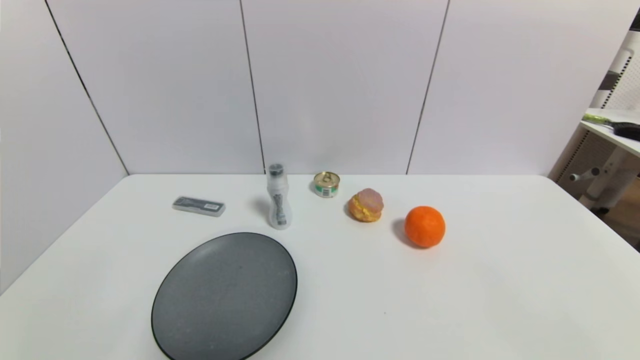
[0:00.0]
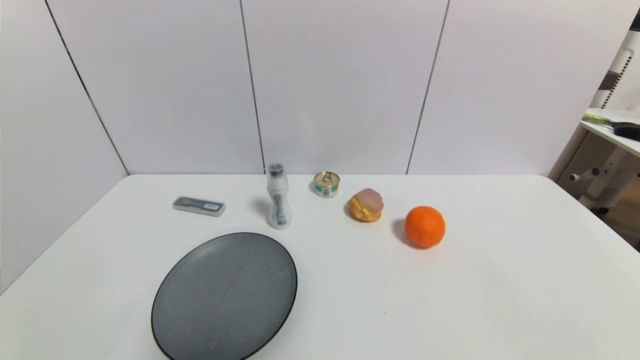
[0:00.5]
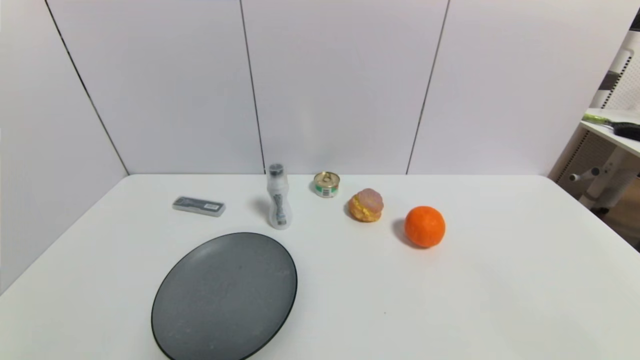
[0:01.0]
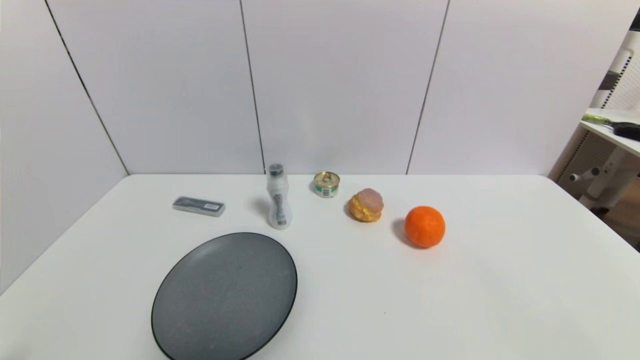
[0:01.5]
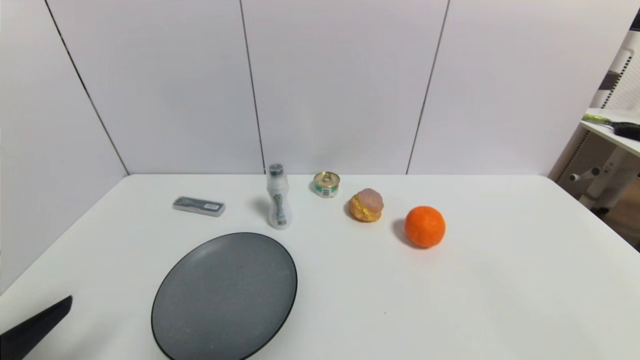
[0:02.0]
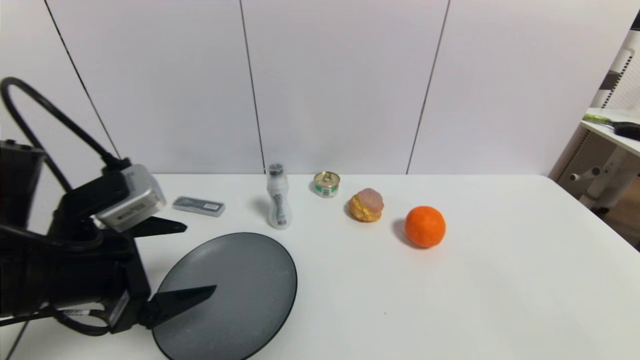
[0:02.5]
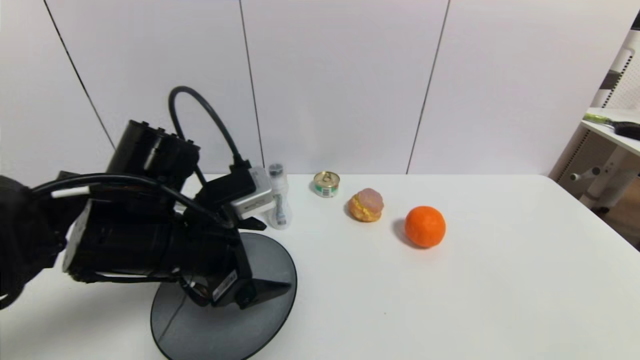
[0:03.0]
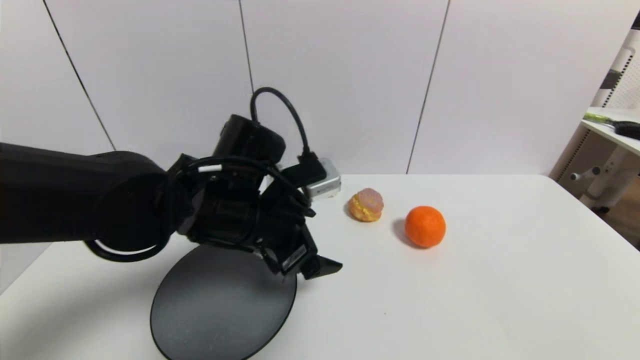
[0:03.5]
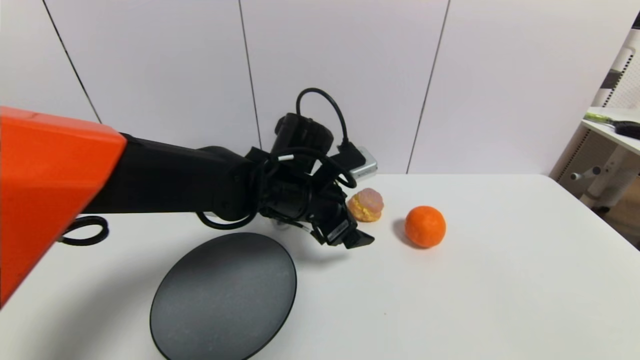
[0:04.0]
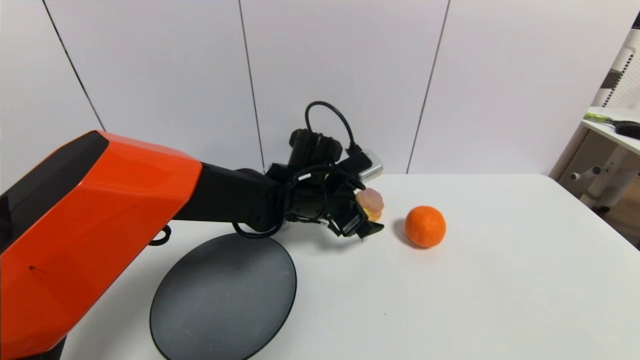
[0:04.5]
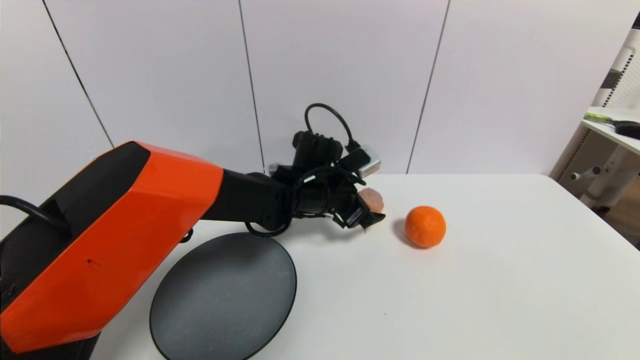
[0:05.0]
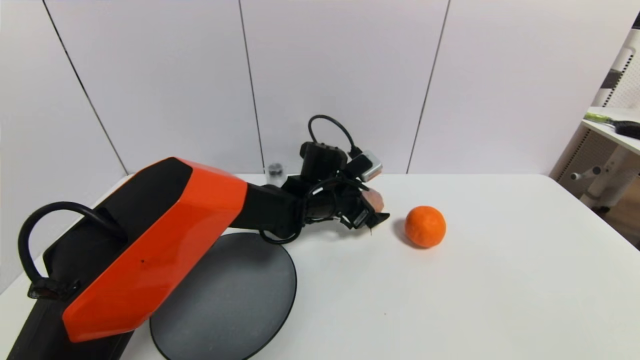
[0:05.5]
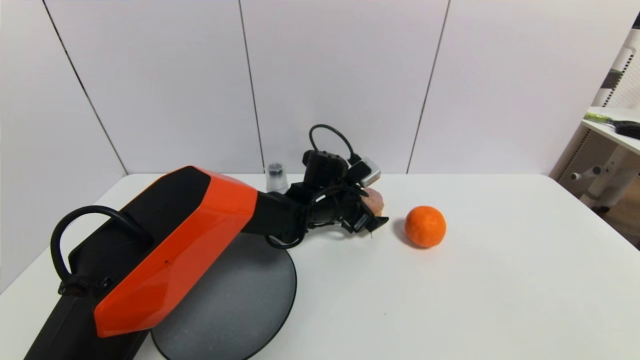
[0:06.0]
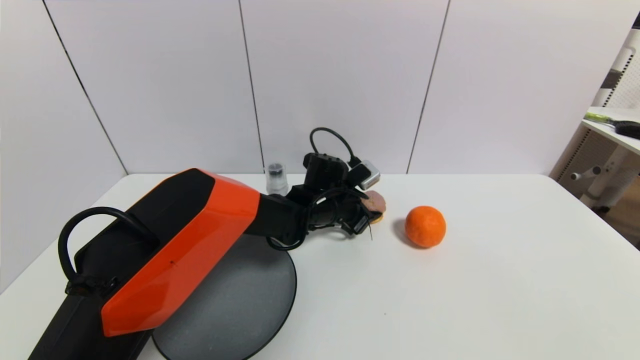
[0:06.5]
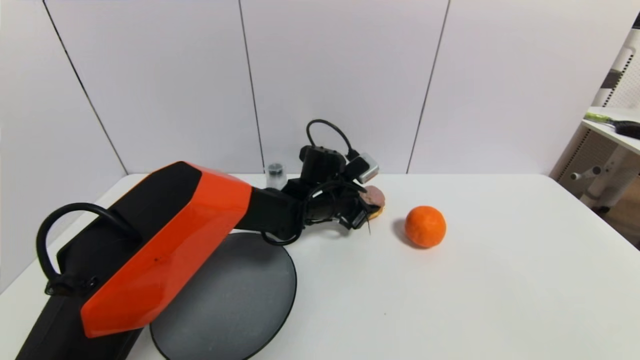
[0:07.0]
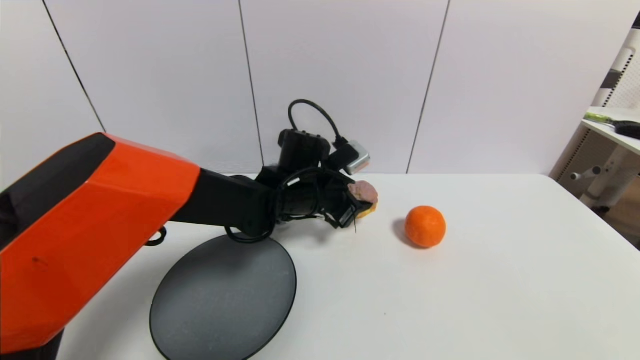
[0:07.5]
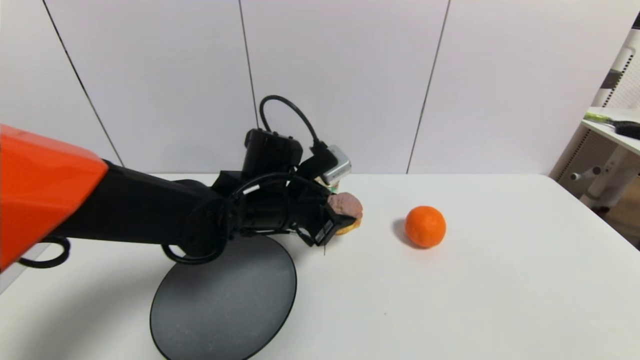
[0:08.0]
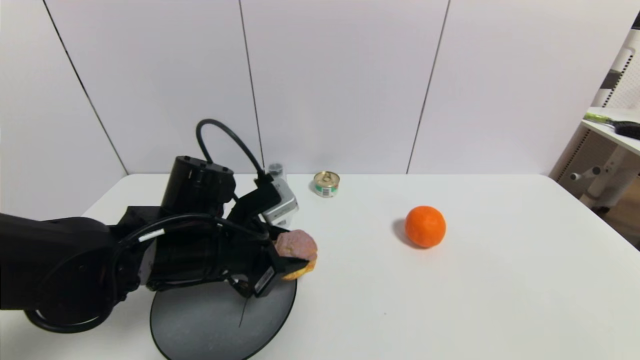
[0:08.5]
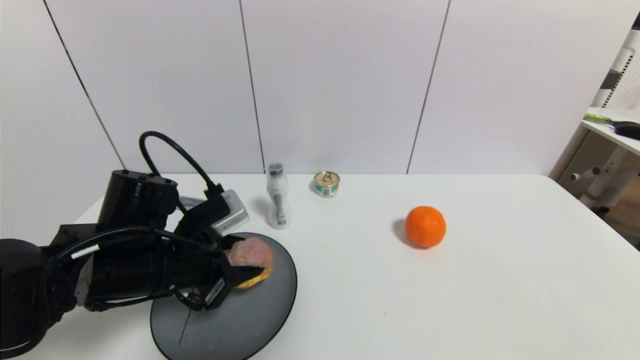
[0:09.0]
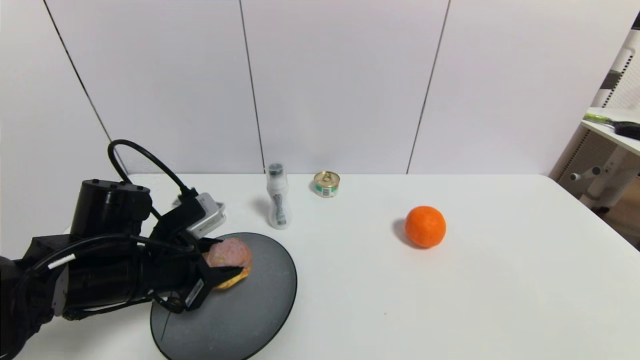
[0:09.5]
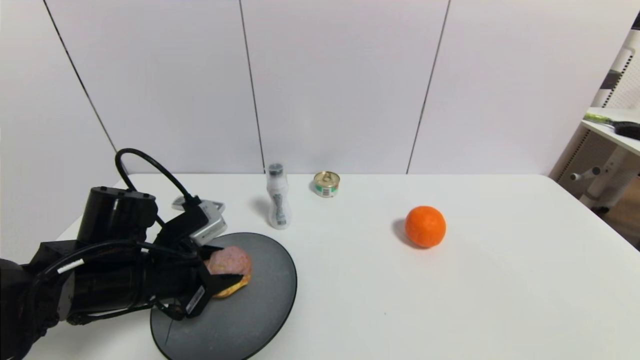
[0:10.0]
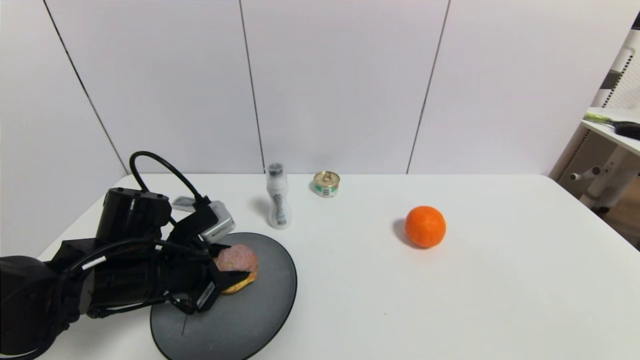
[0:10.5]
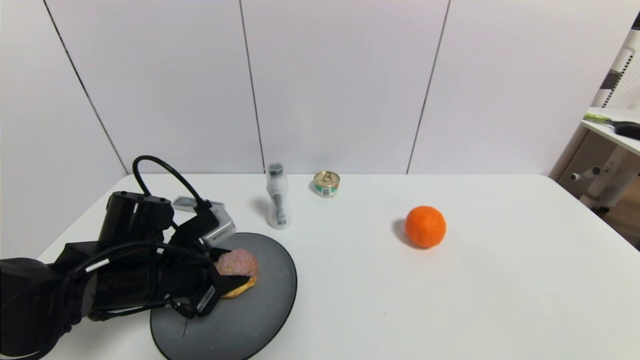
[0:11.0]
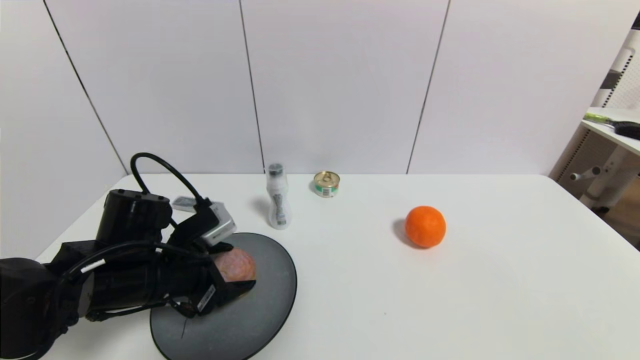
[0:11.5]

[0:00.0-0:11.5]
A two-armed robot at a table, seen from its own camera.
Task of the whole recording: use a gripper to pick the target object and place on the gray plate.
Step, 0:00.0 to 0:06.5: Grasp the round bread with the left gripper.
0:00.0 to 0:02.0: The left gripper goes some 15 cm upward and forward.
0:02.0 to 0:04.0: The left gripper shifts some 35 cm to the right and forward.
0:04.0 to 0:06.0: The left gripper is displaced forward and downward by roughly 10 cm.
0:06.0 to 0:07.5: The left gripper goes some 5 cm upward, and closes up.
0:07.5 to 0:09.5: The left gripper shifts roughly 25 cm to the left and backward.
0:09.5 to 0:11.5: The left gripper opens.

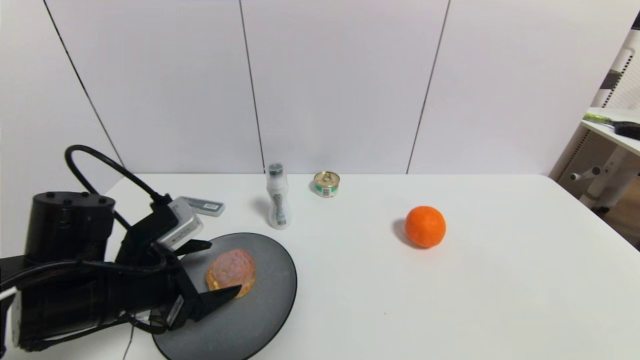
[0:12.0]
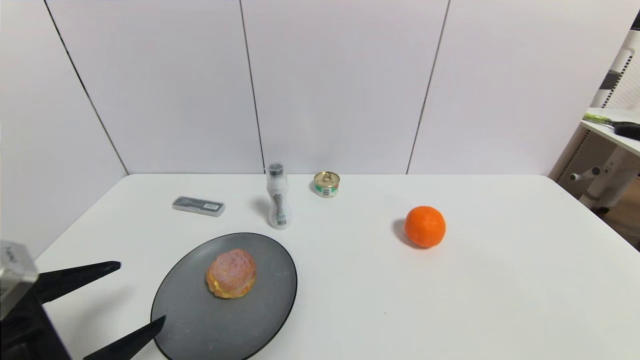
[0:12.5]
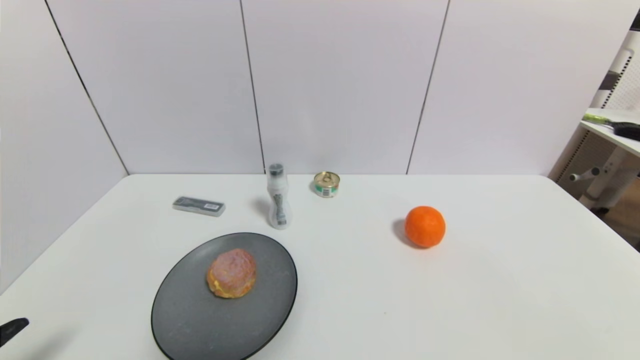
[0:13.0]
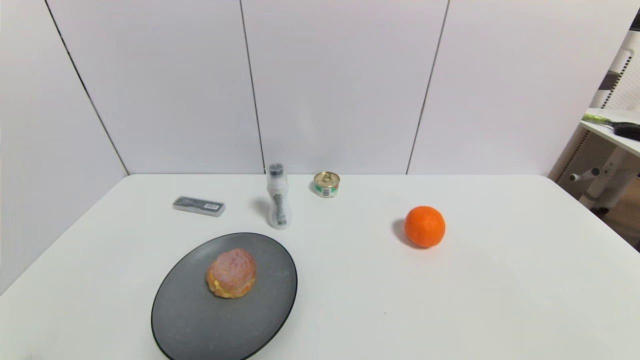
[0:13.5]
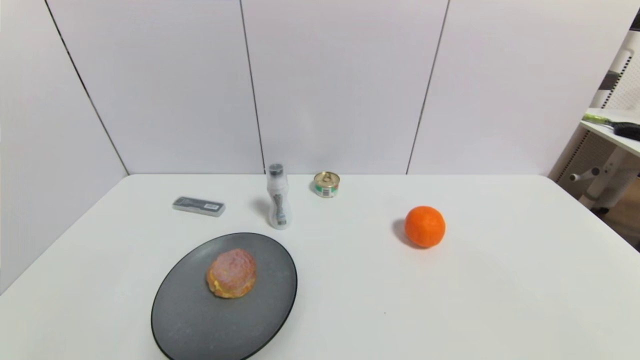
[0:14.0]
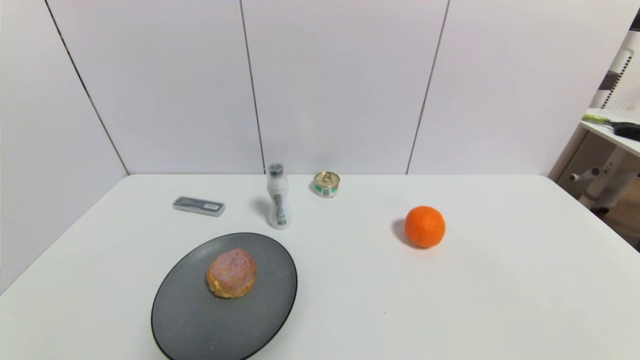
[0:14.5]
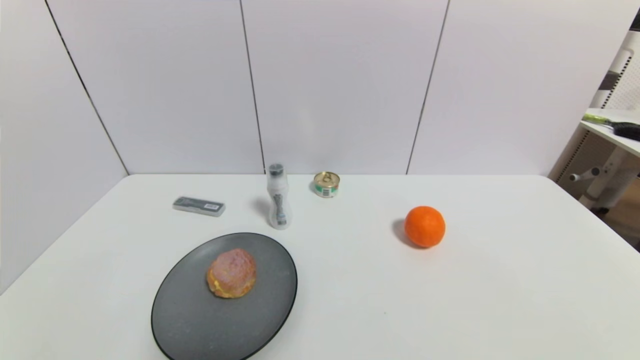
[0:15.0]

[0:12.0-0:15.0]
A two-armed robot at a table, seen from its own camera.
Task of the whole recording: use a gripper to pick the target object and place on the gray plate.
0:12.0 to 0:13.5: The left gripper heads backward, covering approximately 20 cm.

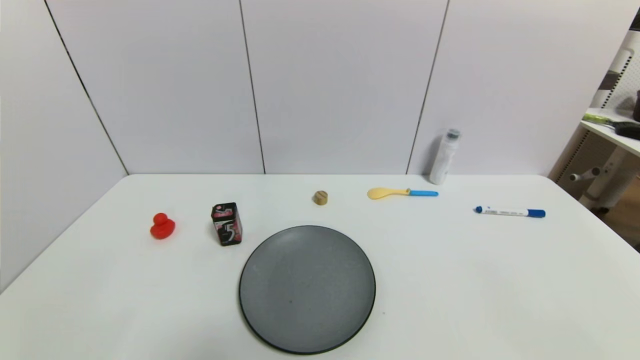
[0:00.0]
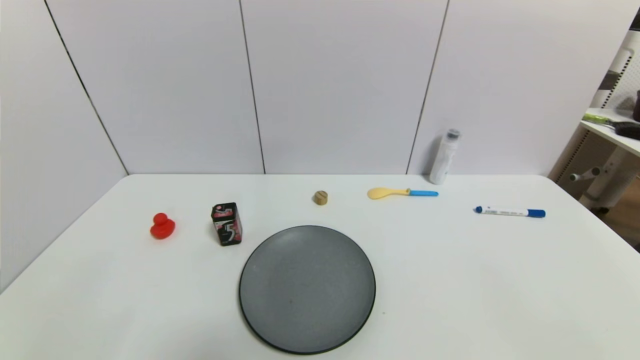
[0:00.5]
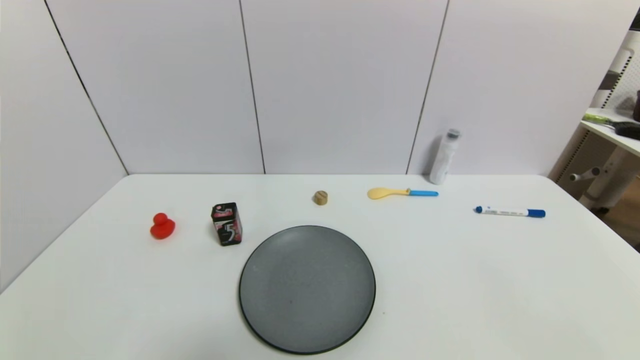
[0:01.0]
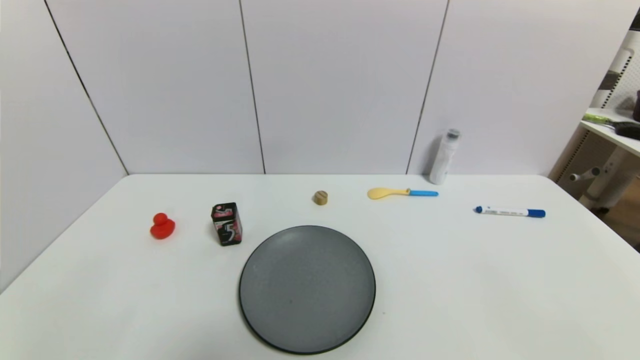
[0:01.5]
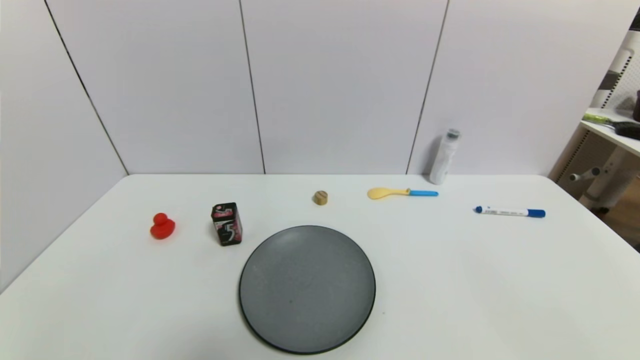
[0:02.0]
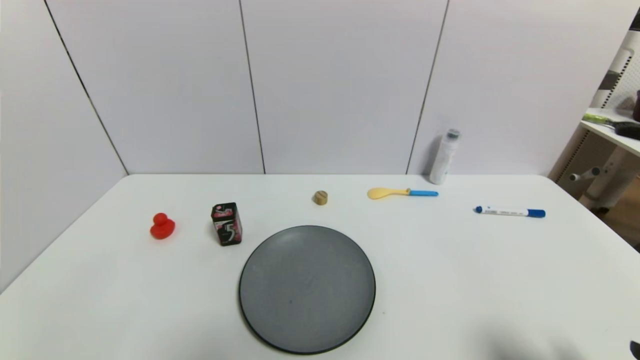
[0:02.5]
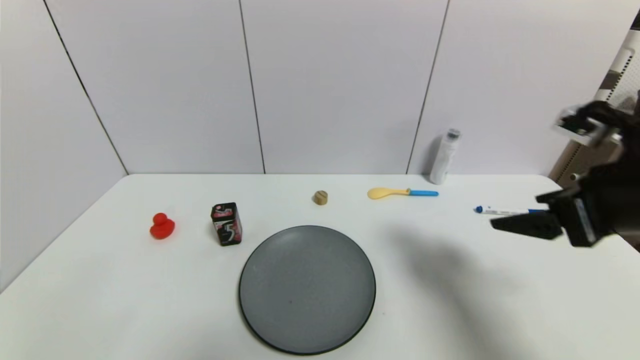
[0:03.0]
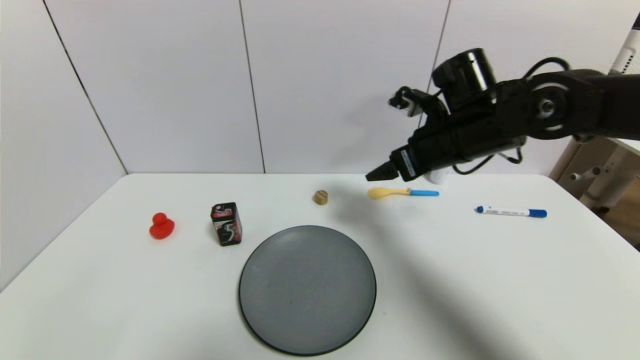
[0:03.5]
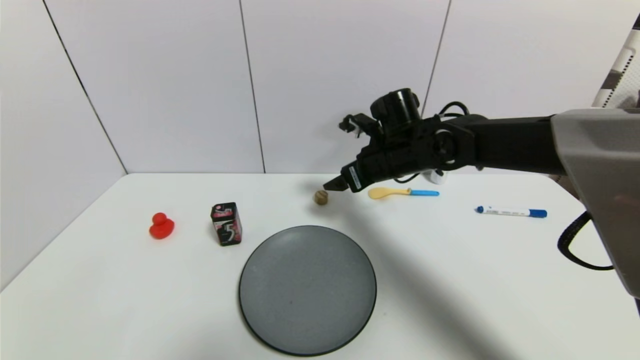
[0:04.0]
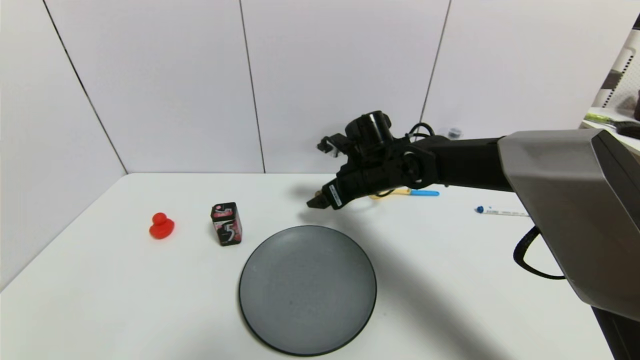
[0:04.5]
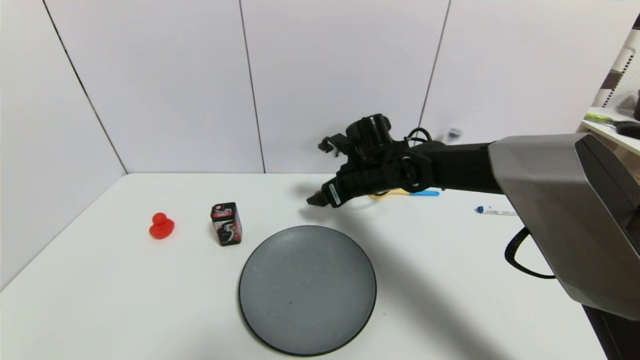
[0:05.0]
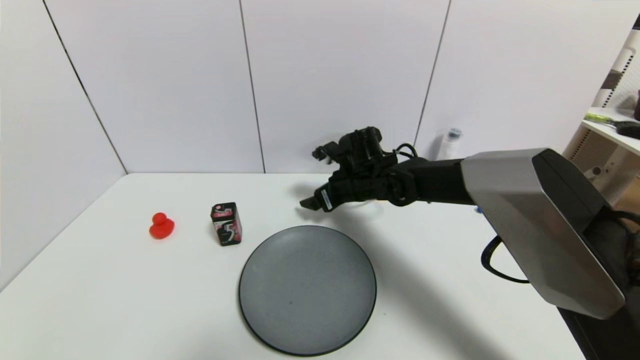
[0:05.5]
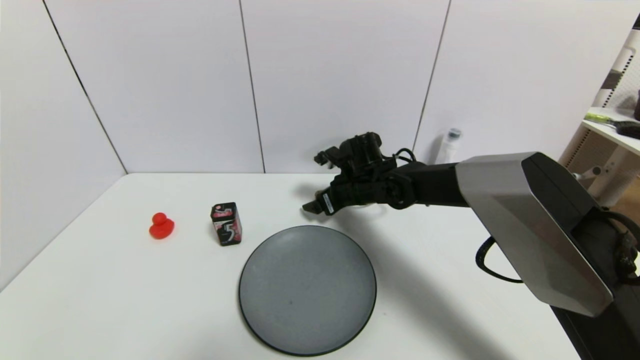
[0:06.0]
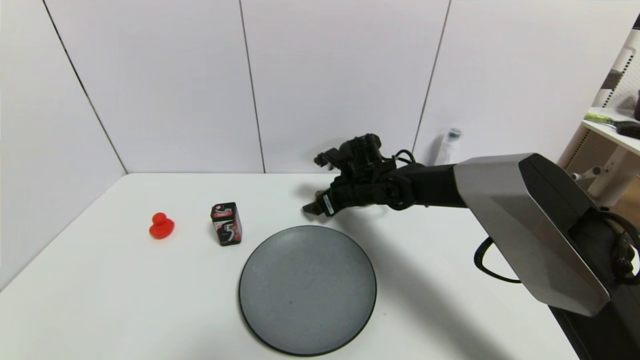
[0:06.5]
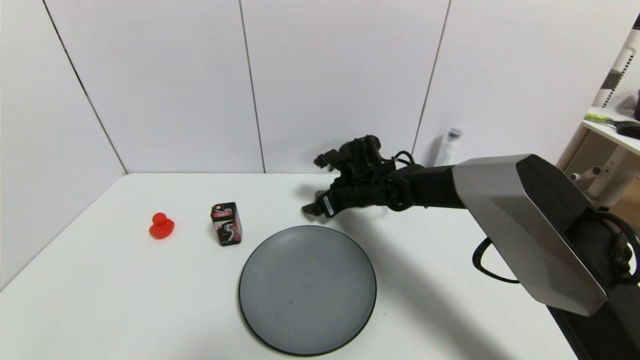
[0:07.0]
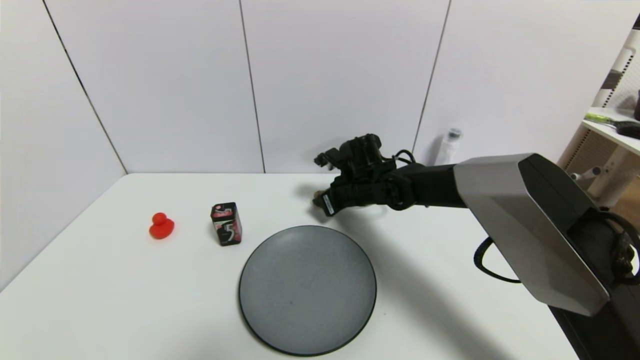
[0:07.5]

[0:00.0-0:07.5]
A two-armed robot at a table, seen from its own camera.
Task of the whole recording: use a gripper to pick the target object and place on the gray plate.
0:02.0 to 0:04.0: The right gripper travels forward and to the left by some 50 cm.
0:04.0 to 0:05.5: The right gripper goes about 5 cm downward.
0:05.5 to 0:07.5: The right gripper closes.
